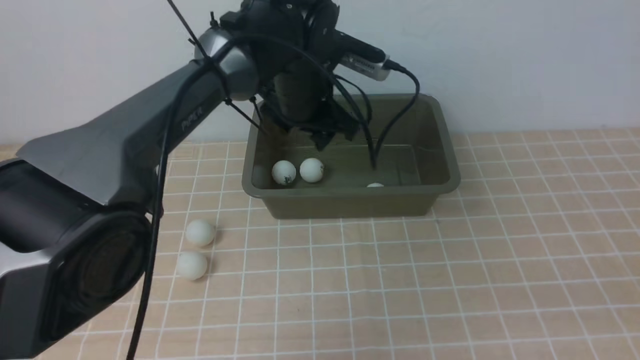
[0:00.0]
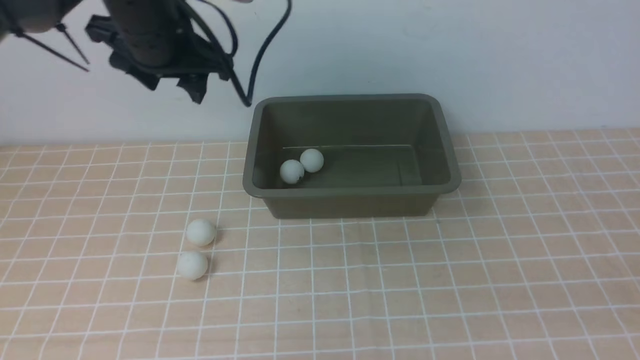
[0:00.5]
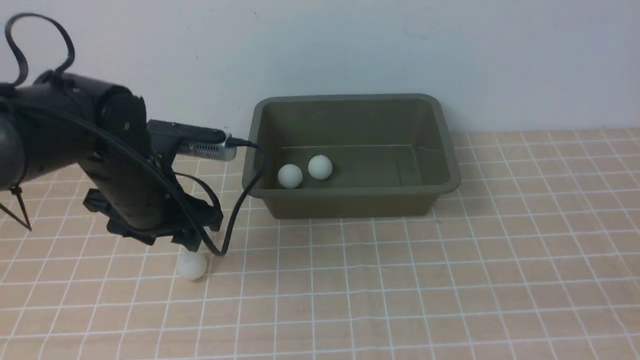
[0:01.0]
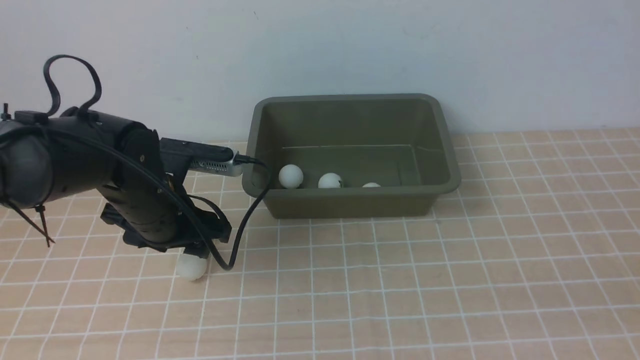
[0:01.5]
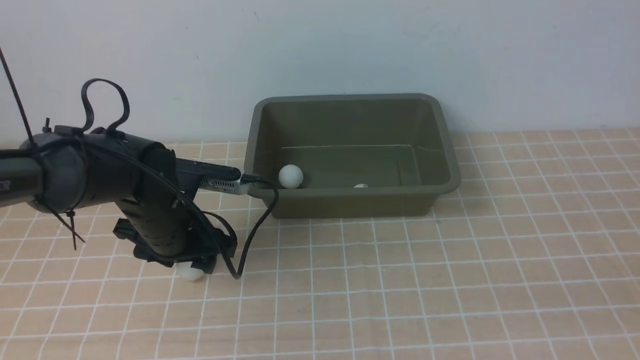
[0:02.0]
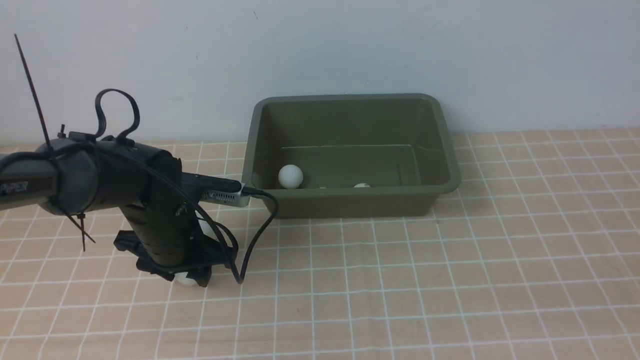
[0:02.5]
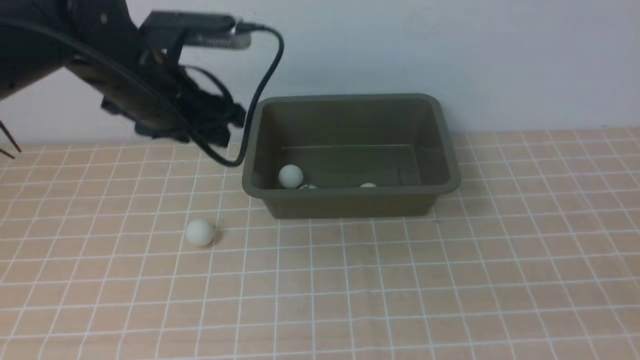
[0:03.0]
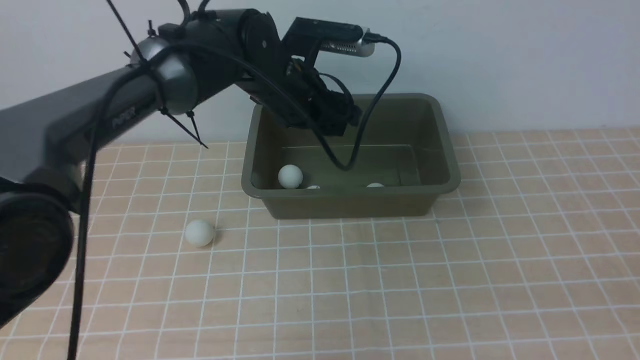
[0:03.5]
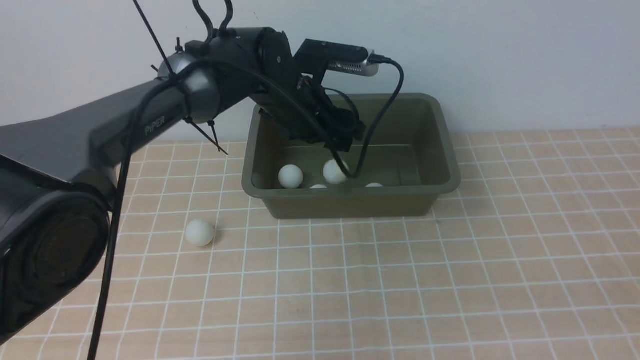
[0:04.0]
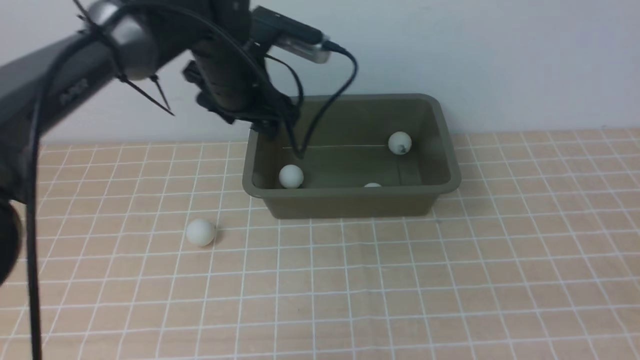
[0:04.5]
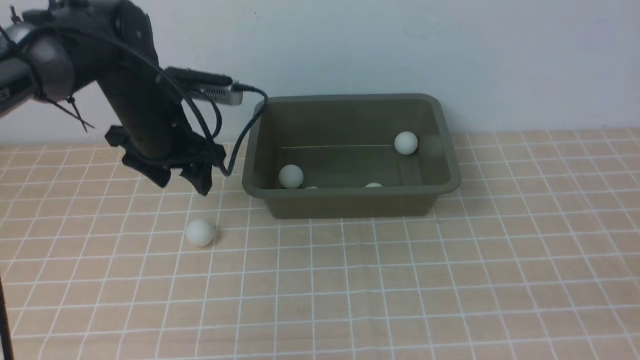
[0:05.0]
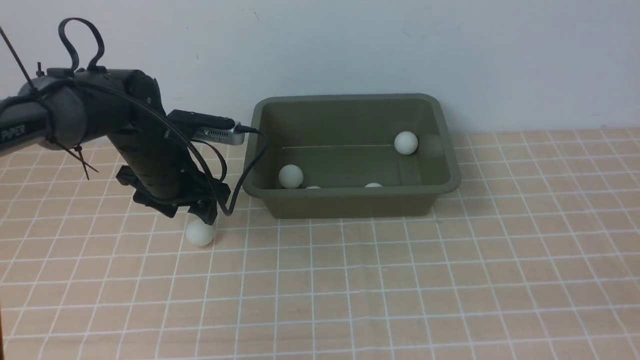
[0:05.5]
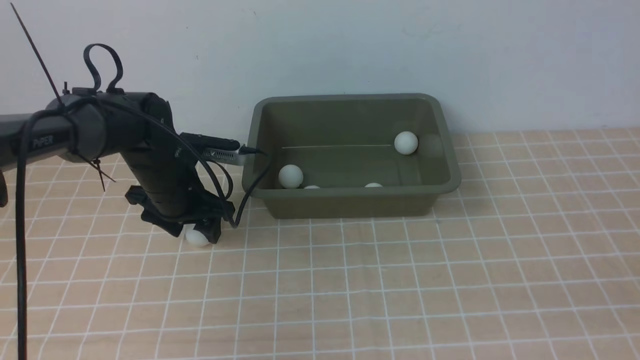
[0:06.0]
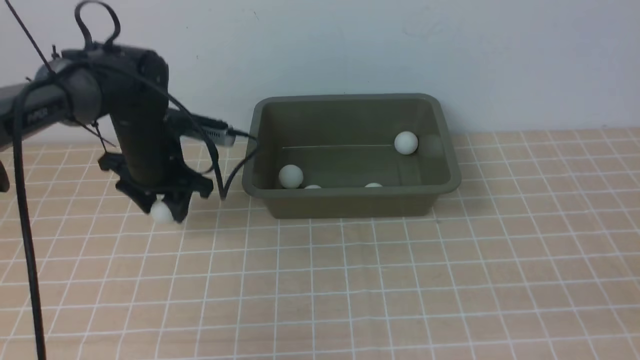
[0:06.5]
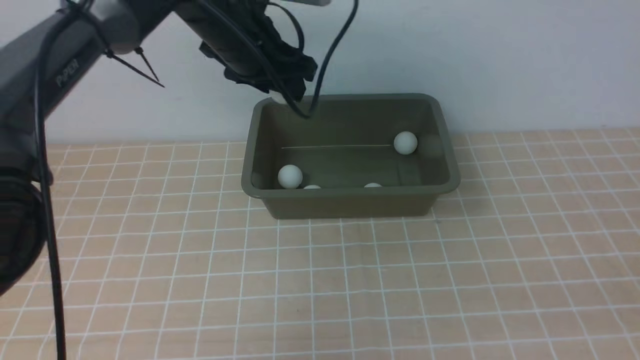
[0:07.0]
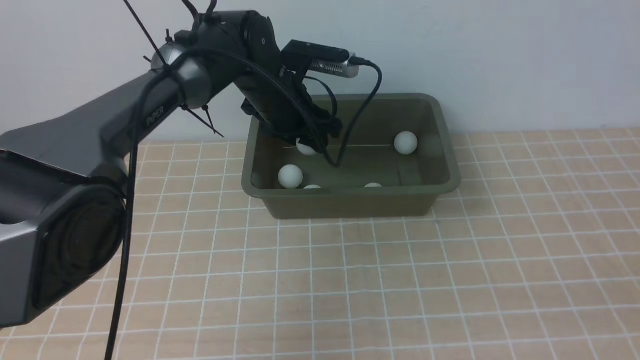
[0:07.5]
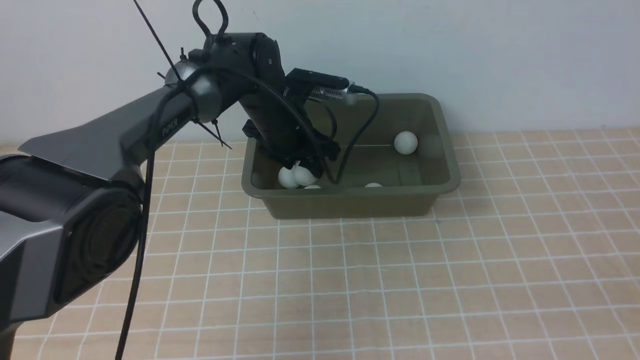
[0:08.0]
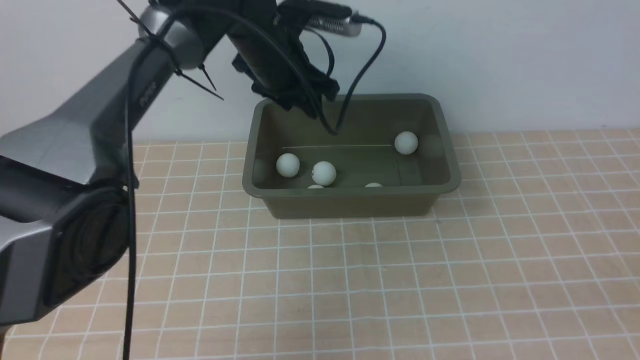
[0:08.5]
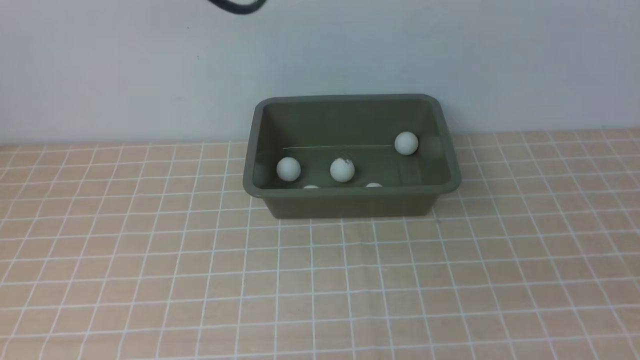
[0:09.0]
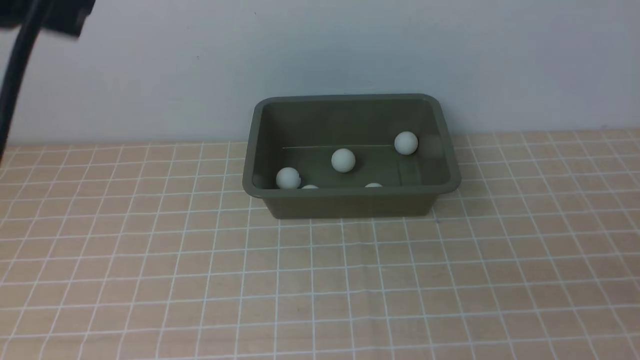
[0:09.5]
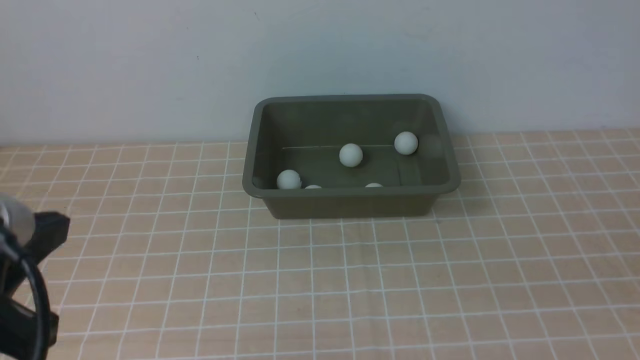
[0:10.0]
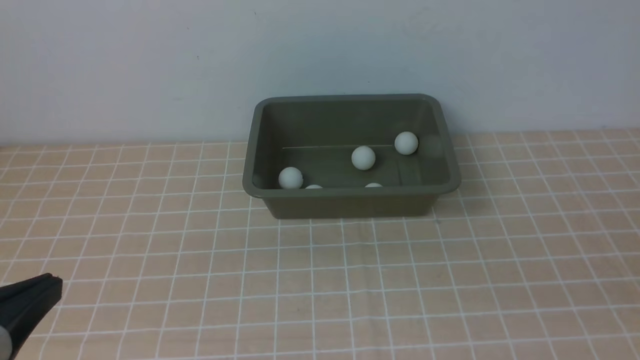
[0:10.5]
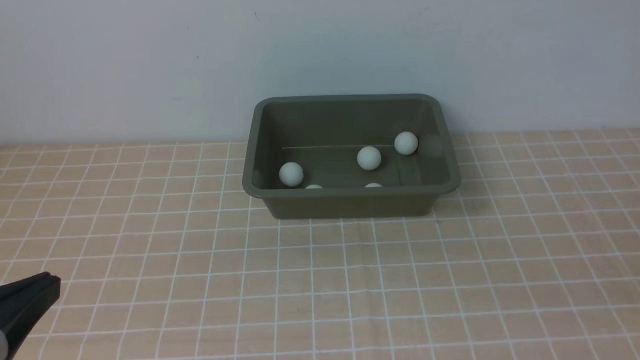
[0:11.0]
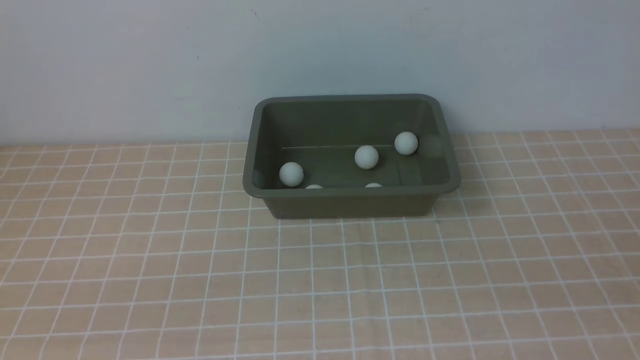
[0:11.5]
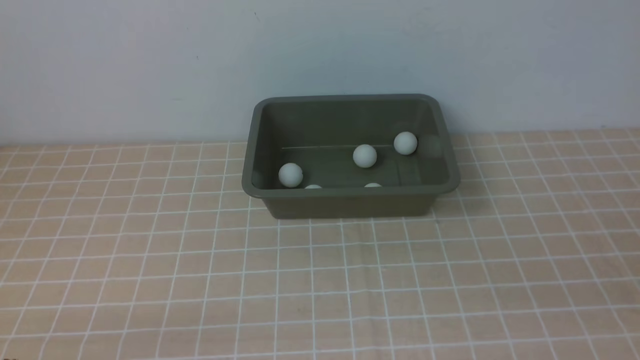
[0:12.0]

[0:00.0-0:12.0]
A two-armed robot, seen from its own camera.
Step, 0:00.5 to 0:02.5: use the left arm to clamp the table tennis ball closest to it.
Step, 0:03.0 to 0:04.0: use the left arm to put the table tennis ball into the box.
Step, 0:04.5 to 0:06.5: use the left arm to clamp the table tennis ball closest to it.
Step, 0:07.0 to 0:08.0: use the left arm to put the table tennis ball into the box.
0:00.0 to 0:02.0: The left gripper goes about 20 cm to the left, backward and downward.
0:02.0 to 0:04.0: The left gripper moves to the right, forward and upward, some 20 cm.
0:04.0 to 0:06.0: The left gripper shifts roughly 15 cm to the left and downward.
0:06.0 to 0:08.0: The left gripper goes roughly 15 cm to the right and forward, and travels upward and back again, roughly 15 cm each way.
0:08.0 to 0:10.0: The right gripper goes roughly 5 cm forward. The left gripper goes some 40 cm backward, upward and to the left, and closes its fingers.
0:10.0 to 0:12.0: The left gripper heads downward, covering roughly 20 cm.

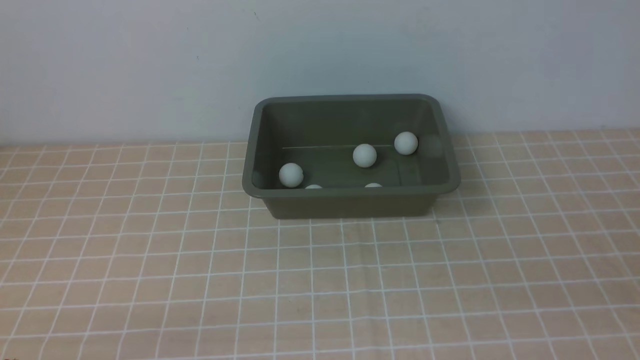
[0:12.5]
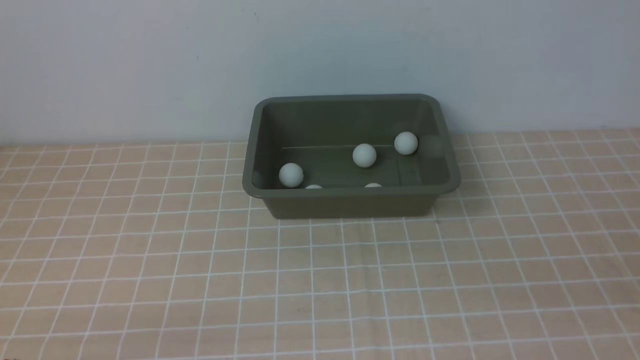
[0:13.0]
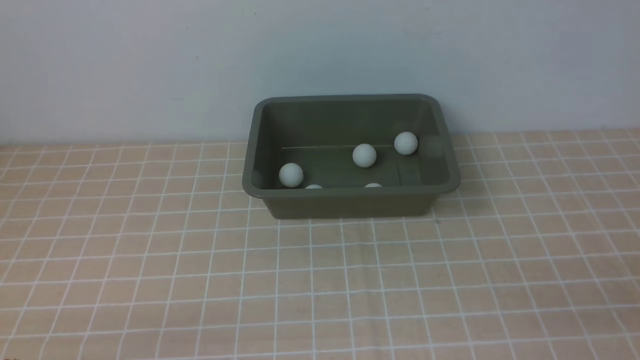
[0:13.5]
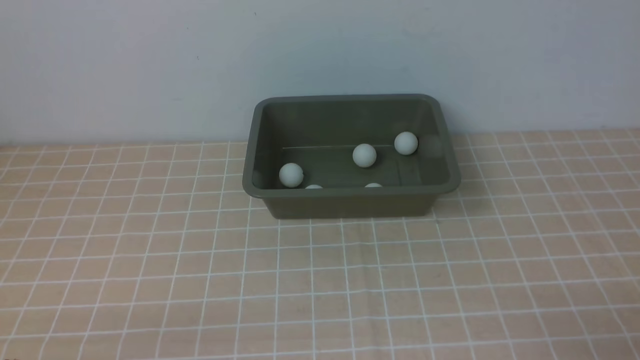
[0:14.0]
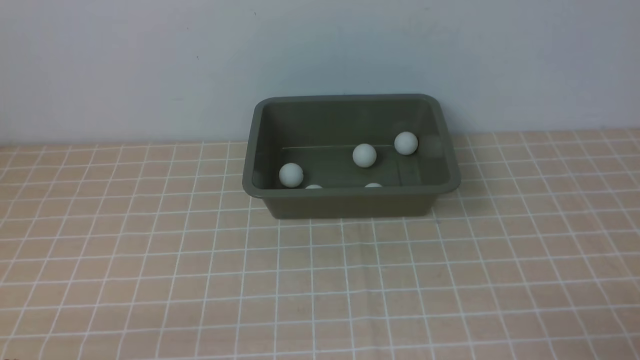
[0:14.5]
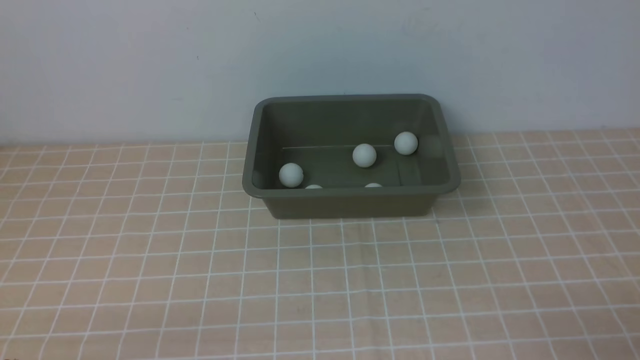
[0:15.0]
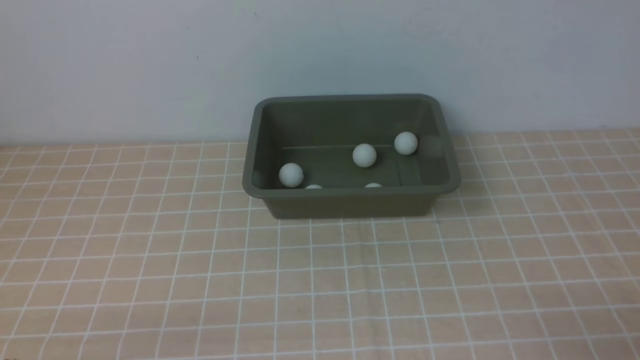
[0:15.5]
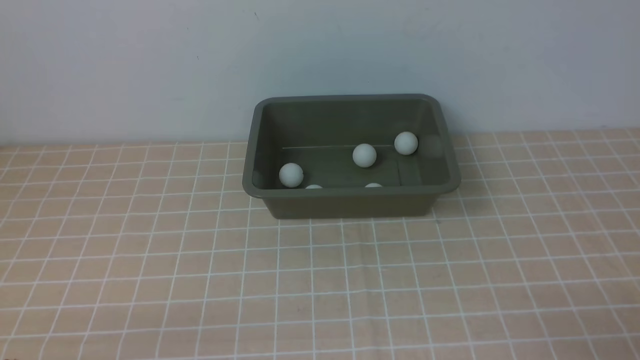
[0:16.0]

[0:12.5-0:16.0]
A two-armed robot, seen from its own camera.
0:14.5 to 0:16.0: Neither gripper changes place.
